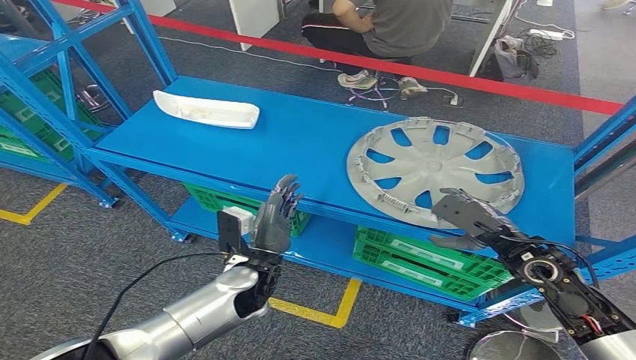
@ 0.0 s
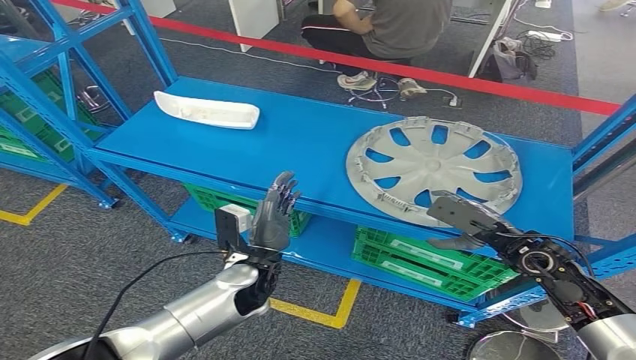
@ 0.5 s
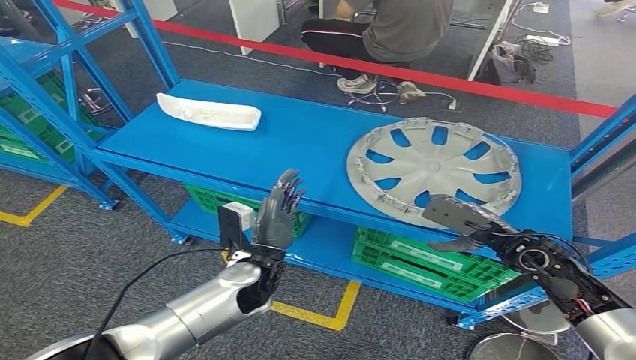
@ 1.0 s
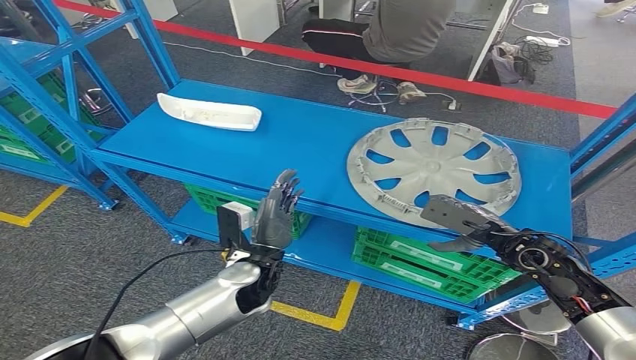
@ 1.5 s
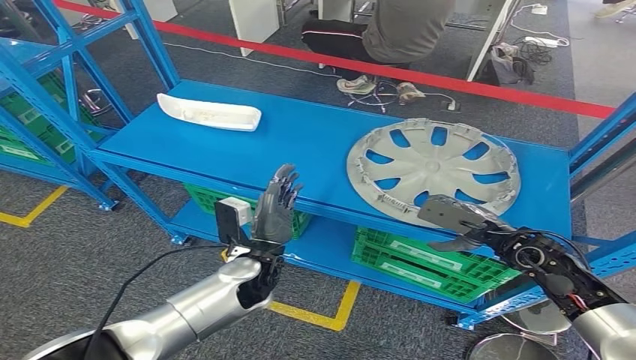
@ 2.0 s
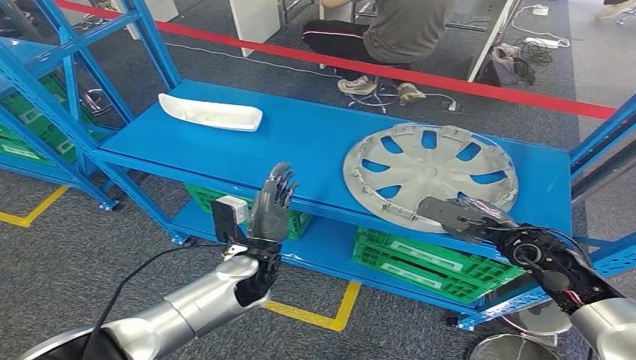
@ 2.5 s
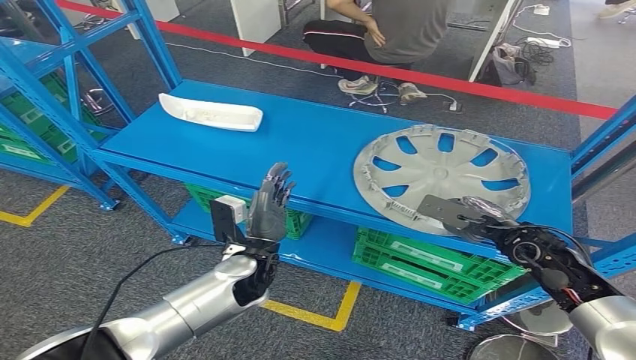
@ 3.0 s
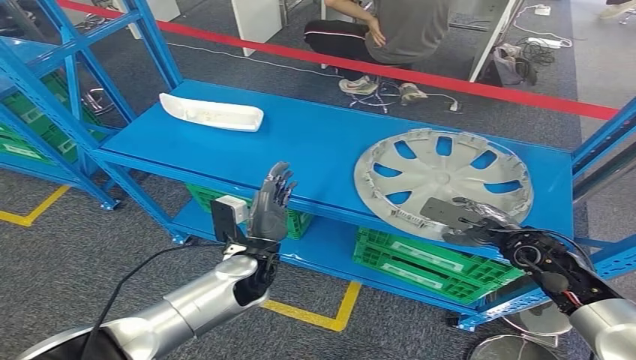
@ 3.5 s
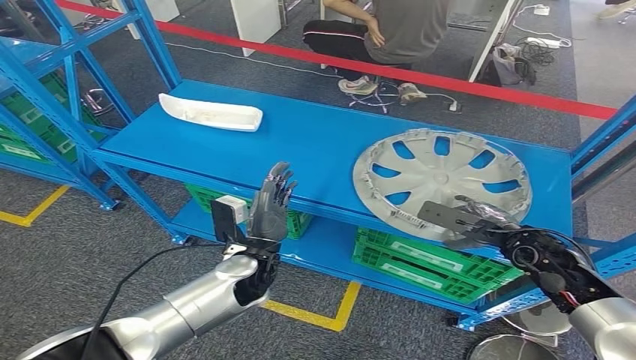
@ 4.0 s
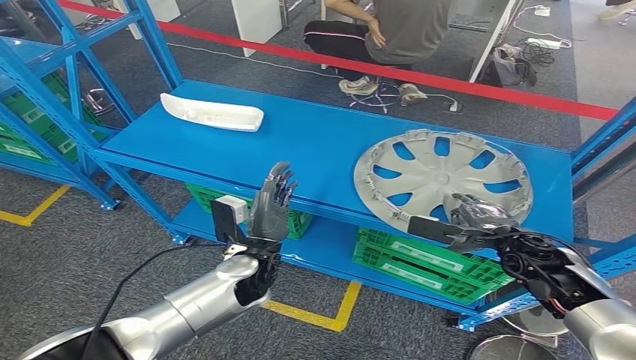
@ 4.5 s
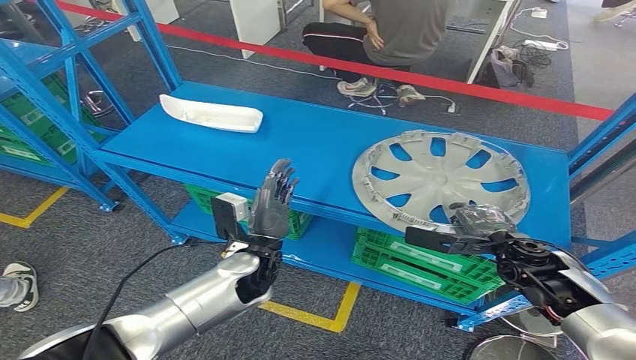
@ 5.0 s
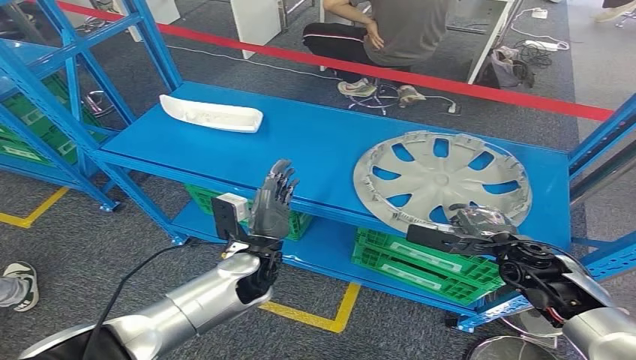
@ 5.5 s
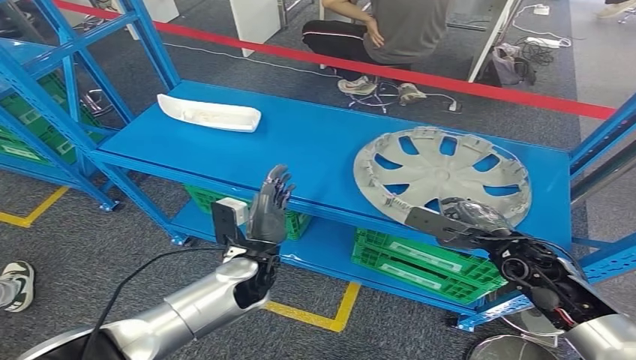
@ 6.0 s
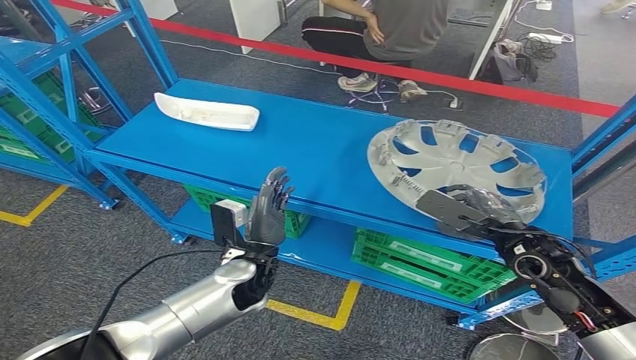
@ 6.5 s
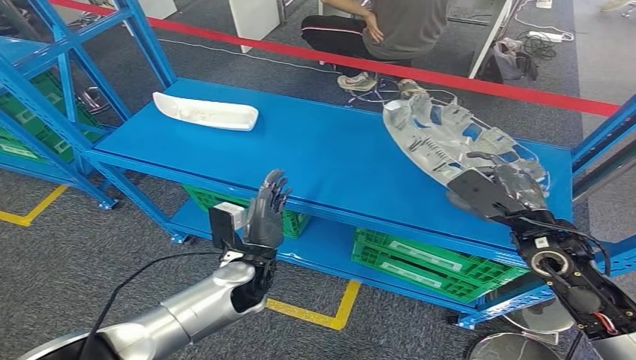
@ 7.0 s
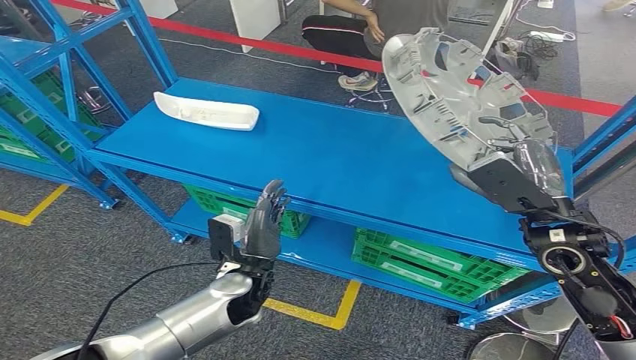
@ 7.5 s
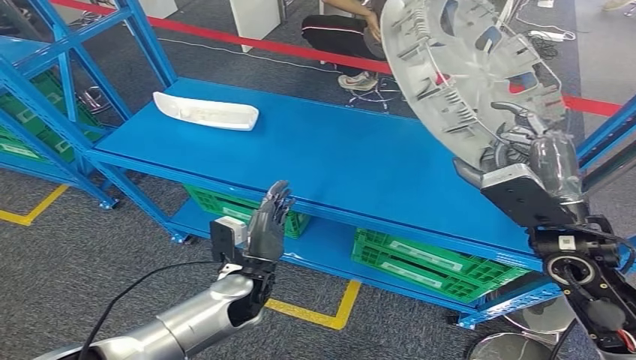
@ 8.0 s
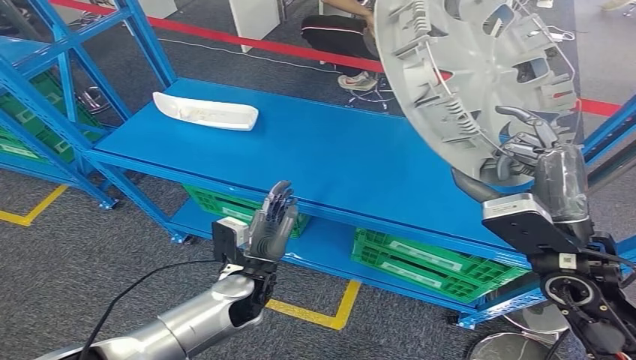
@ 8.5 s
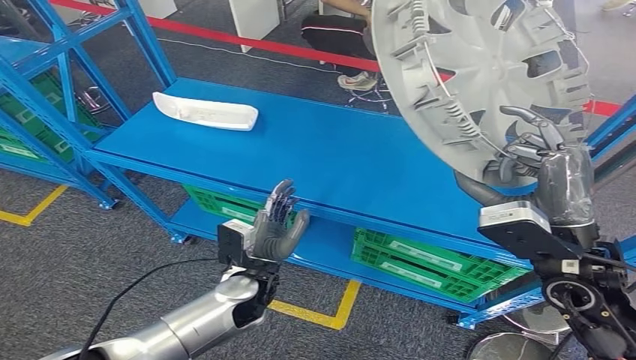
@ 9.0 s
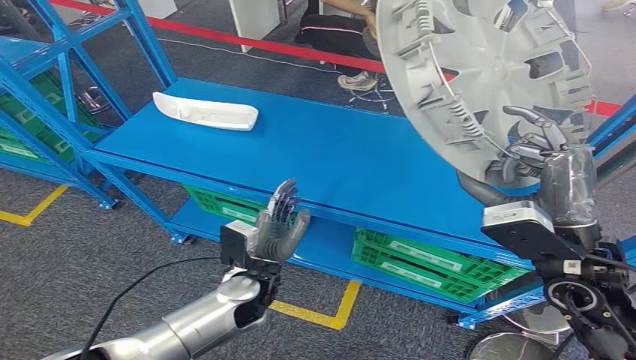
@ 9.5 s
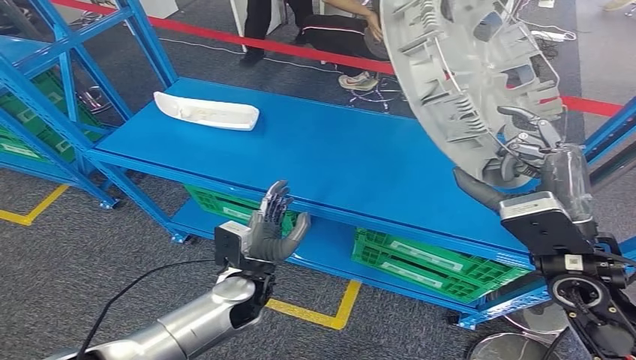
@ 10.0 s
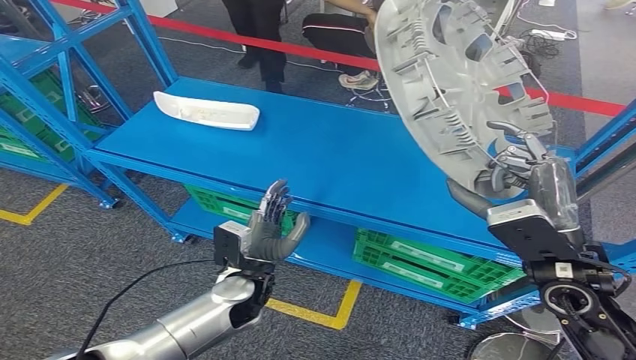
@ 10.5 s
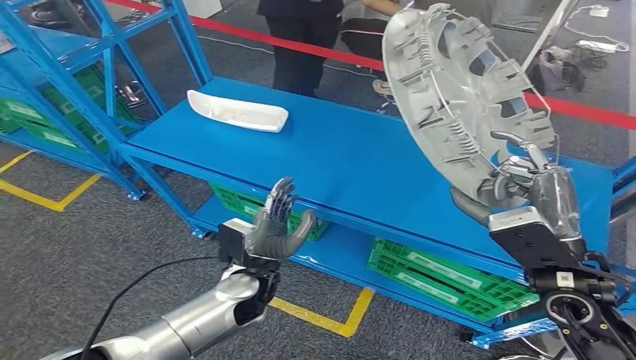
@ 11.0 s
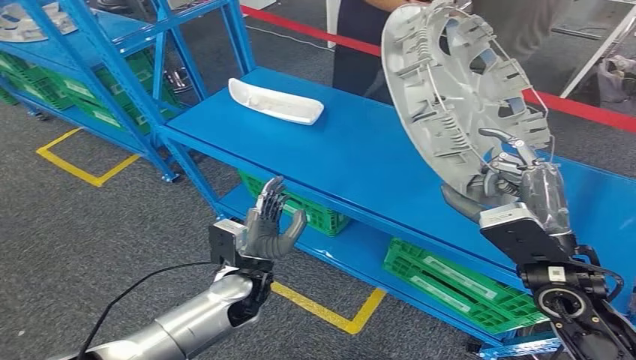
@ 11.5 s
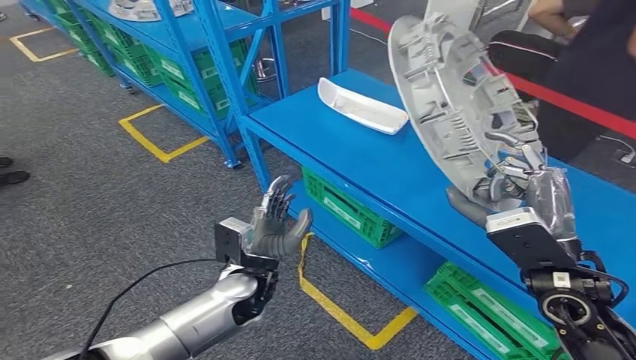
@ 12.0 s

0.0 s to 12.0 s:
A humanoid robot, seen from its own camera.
Step, 0.0 to 8.0 s: Pick up the small parts from the shelf.
0.0 to 2.0 s: The hands stay close to where they were, moving slightly.
2.0 to 4.0 s: The hands move only a little.
8.0 to 10.0 s: The hands stay close to where they were, moving slightly.

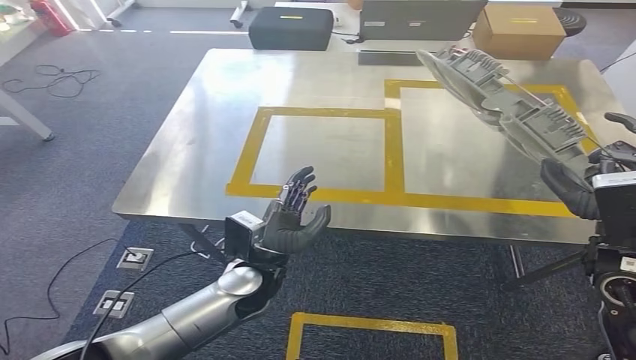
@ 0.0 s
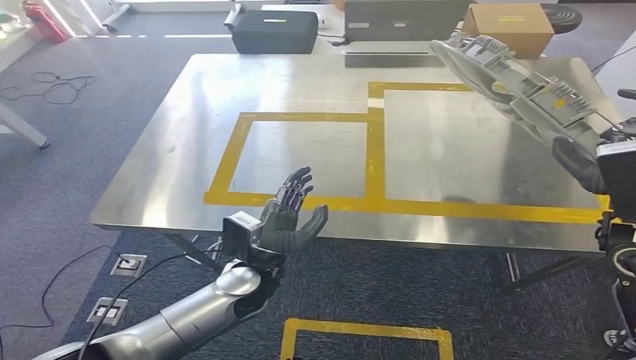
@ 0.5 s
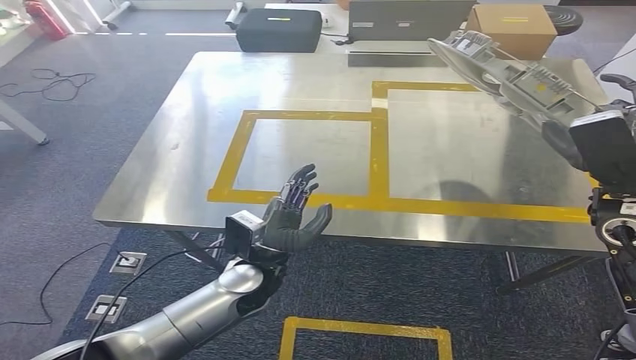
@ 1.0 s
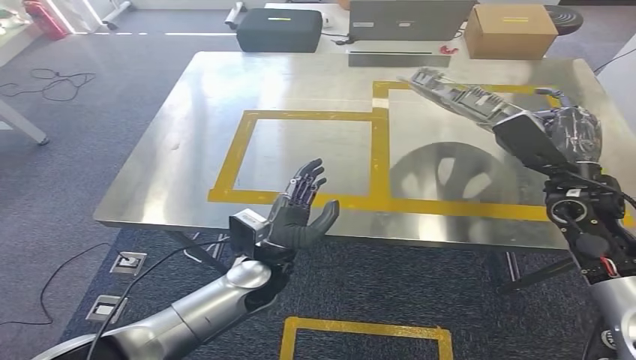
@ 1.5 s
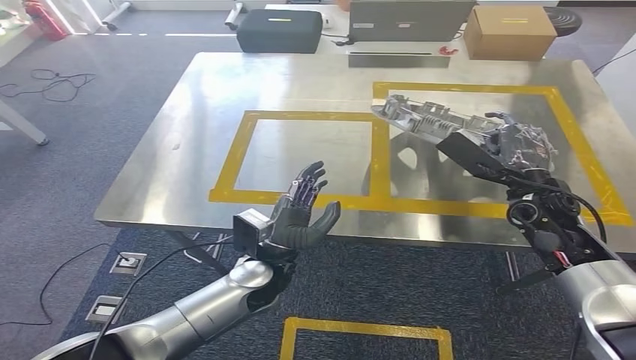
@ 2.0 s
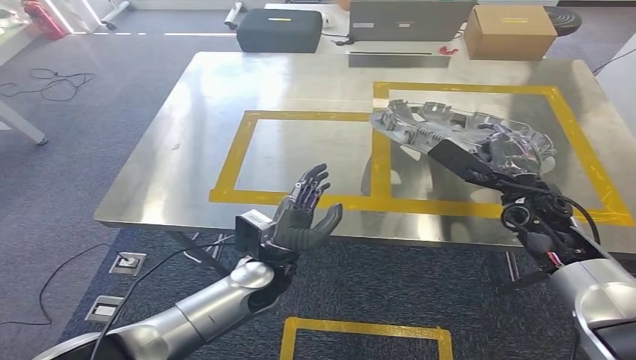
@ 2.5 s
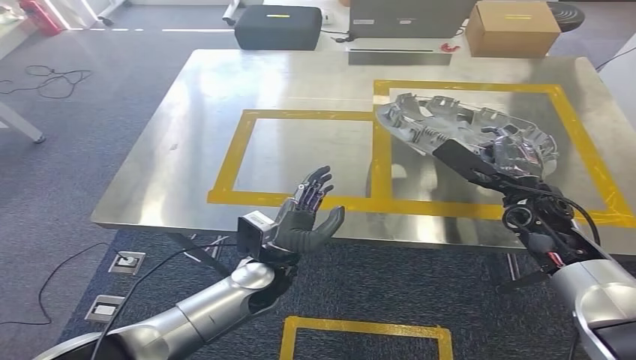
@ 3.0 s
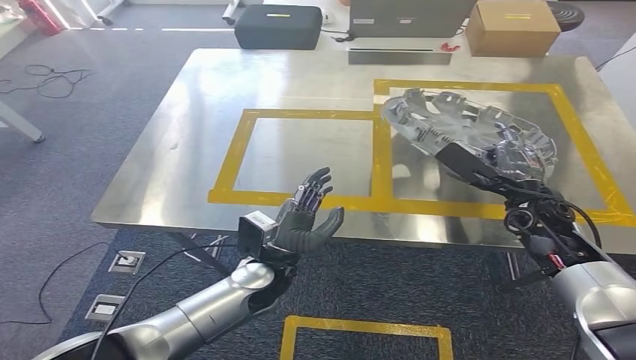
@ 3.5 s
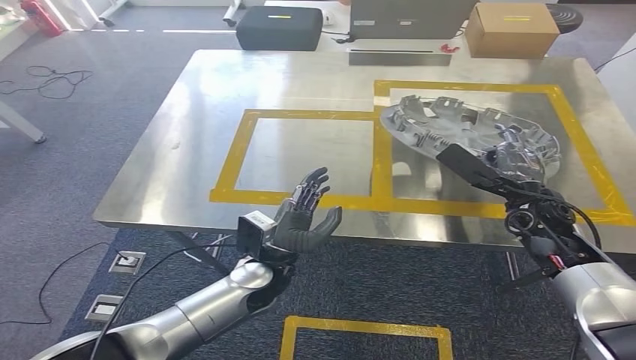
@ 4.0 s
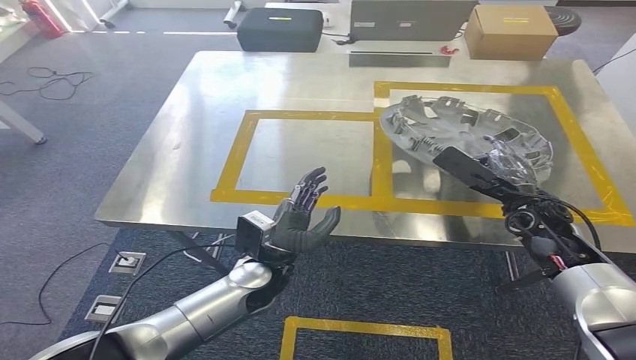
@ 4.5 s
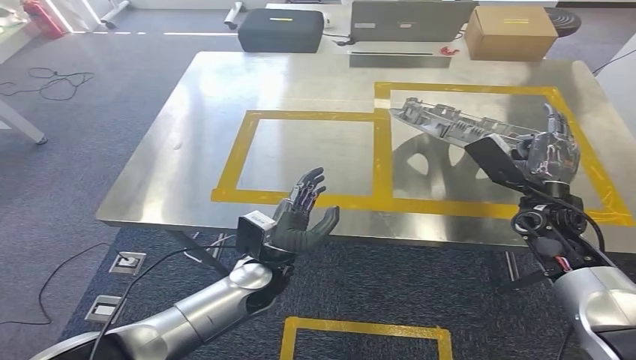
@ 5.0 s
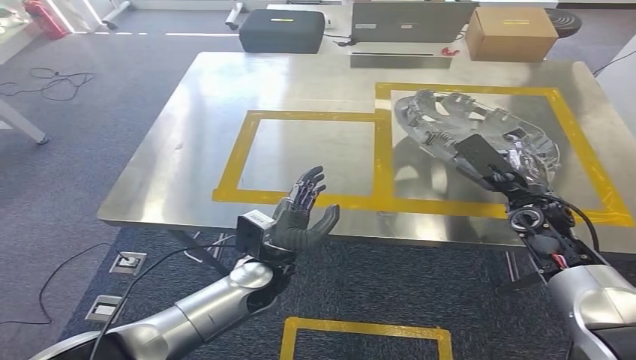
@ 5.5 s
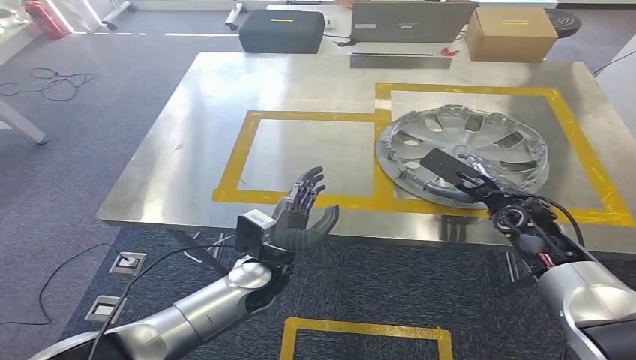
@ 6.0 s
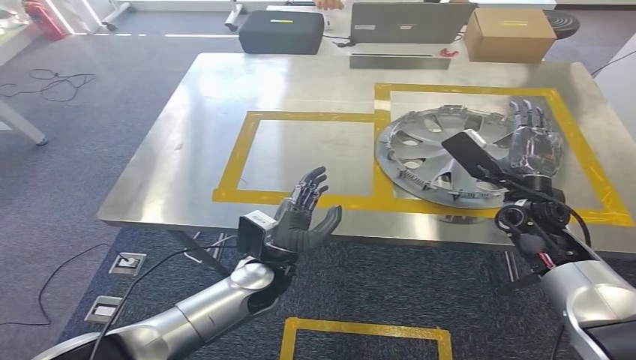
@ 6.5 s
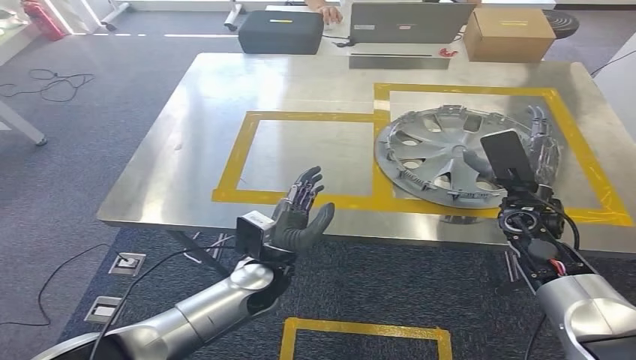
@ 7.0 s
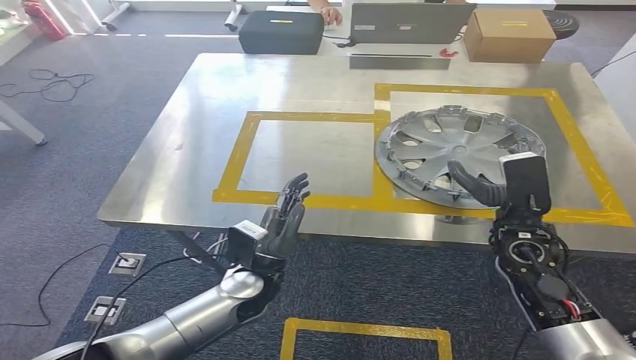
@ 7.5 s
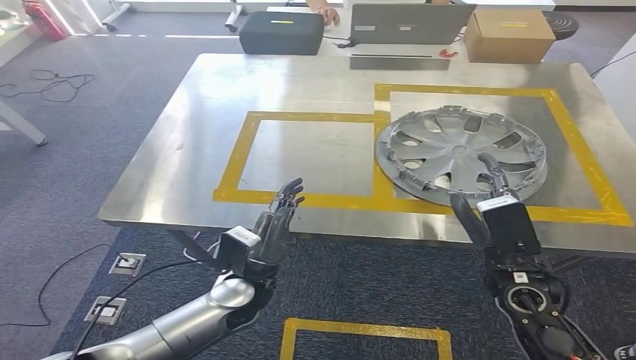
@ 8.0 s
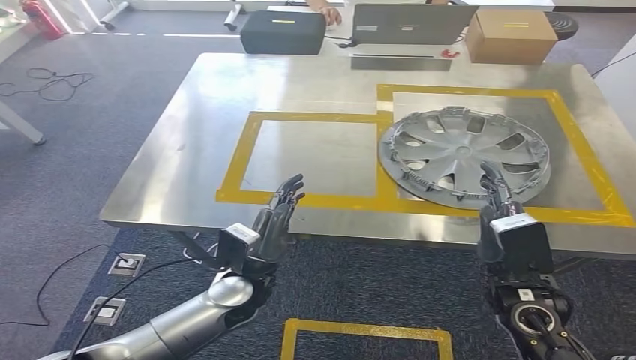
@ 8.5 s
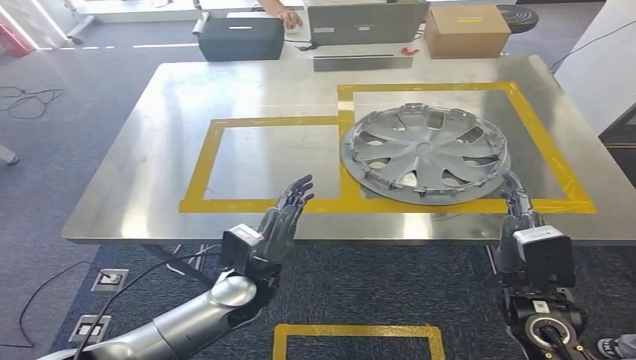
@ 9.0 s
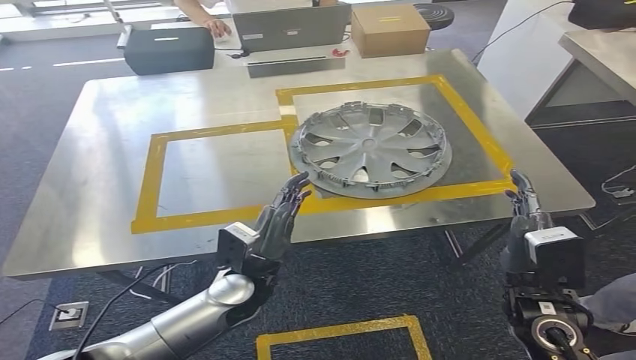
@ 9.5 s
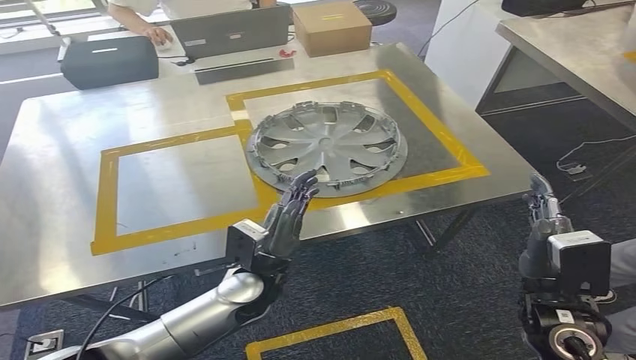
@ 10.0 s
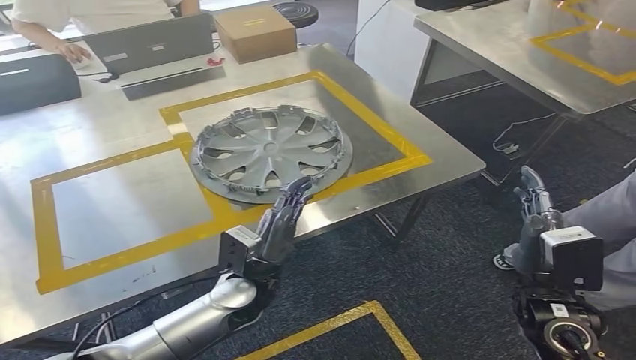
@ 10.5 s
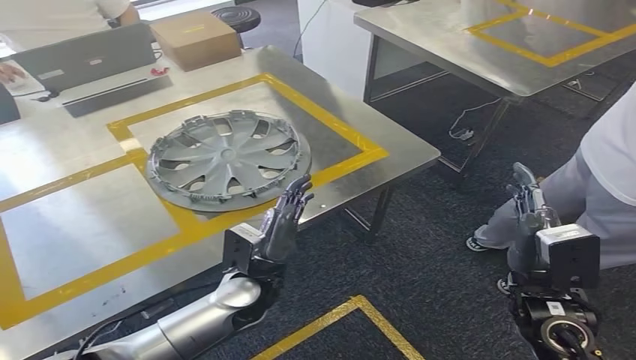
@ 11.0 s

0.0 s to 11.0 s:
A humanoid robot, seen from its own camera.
Step, 0.5 to 7.0 s: Insert the small parts into the corresponding holes on the workbench.
2.0 to 3.5 s: The hands move only a little.
5.5 to 7.5 s: The right hand heads backward, covering about 5 cm.
